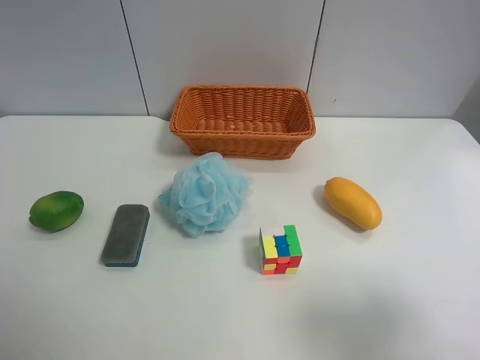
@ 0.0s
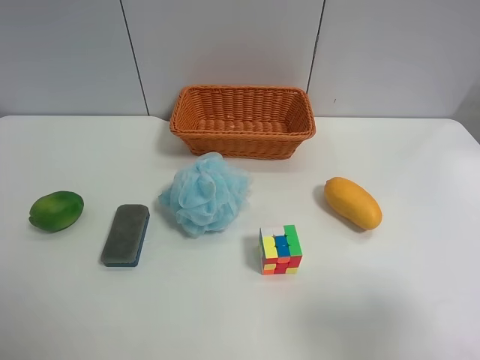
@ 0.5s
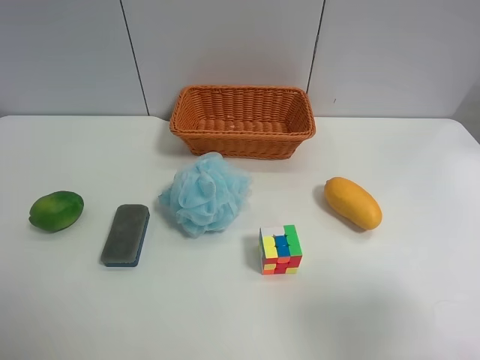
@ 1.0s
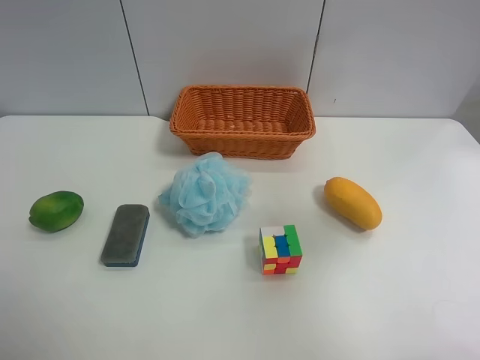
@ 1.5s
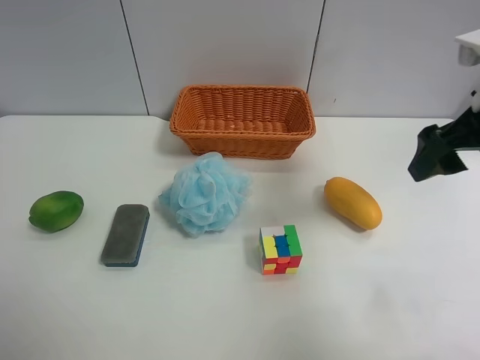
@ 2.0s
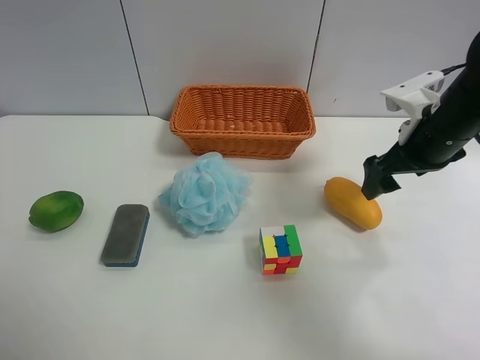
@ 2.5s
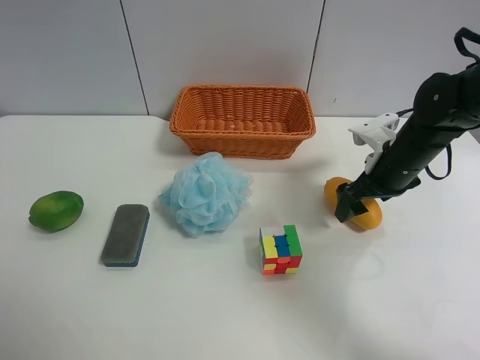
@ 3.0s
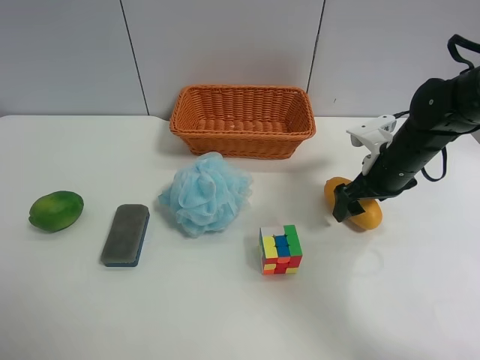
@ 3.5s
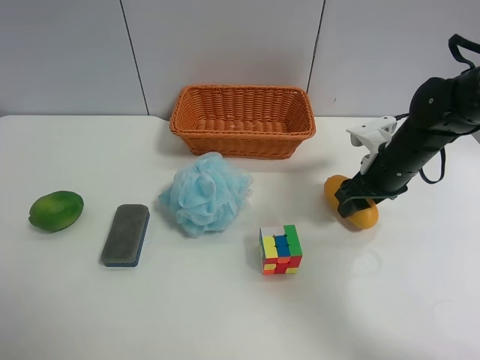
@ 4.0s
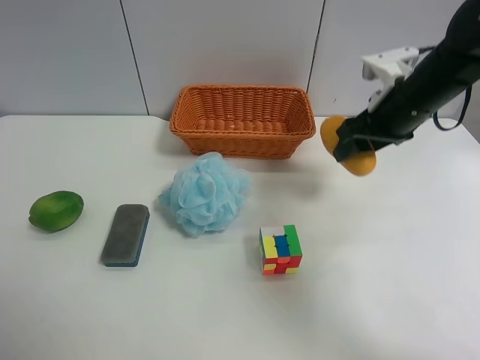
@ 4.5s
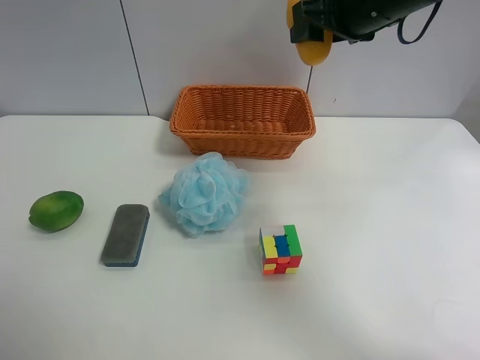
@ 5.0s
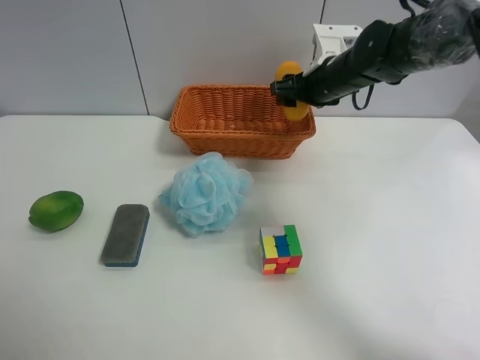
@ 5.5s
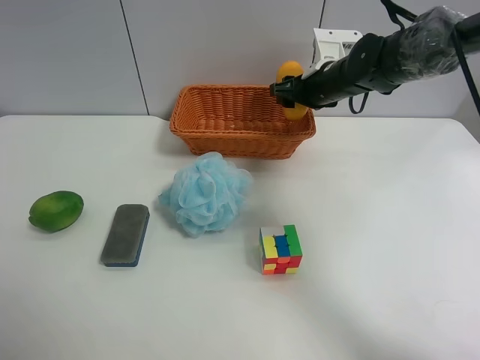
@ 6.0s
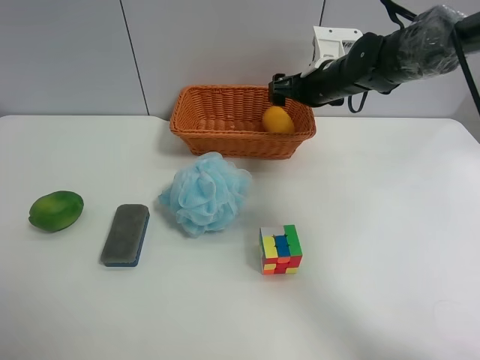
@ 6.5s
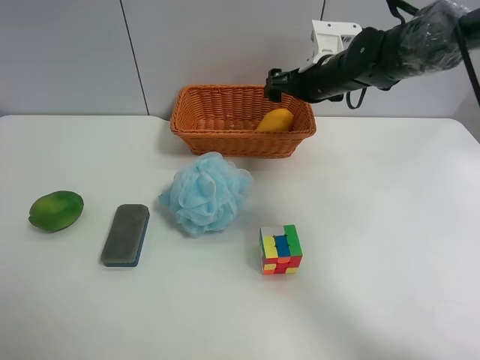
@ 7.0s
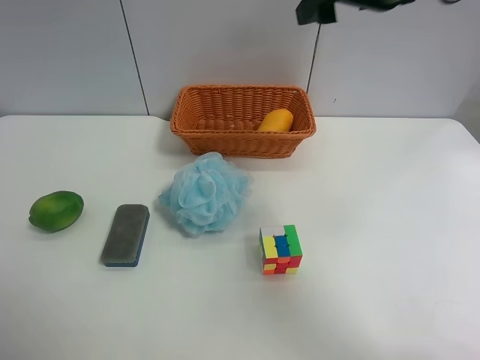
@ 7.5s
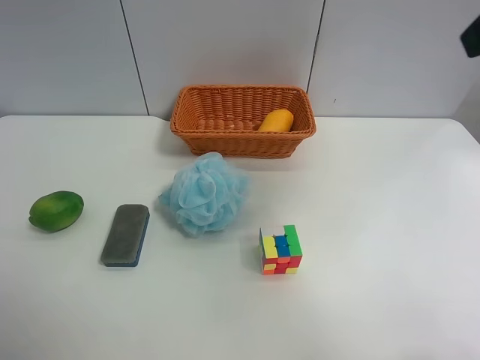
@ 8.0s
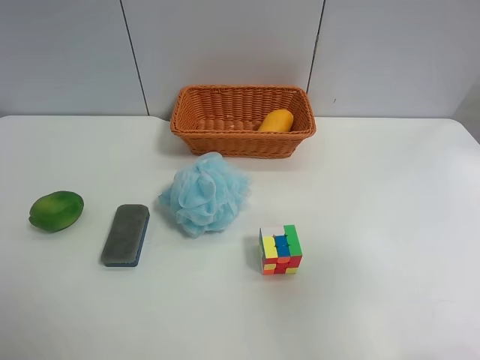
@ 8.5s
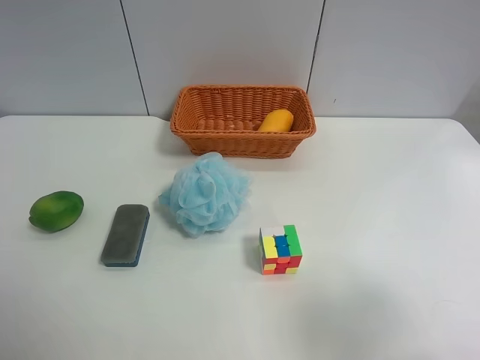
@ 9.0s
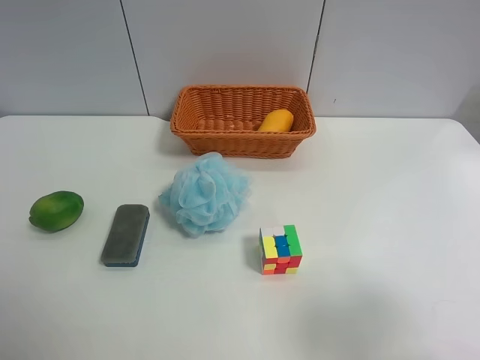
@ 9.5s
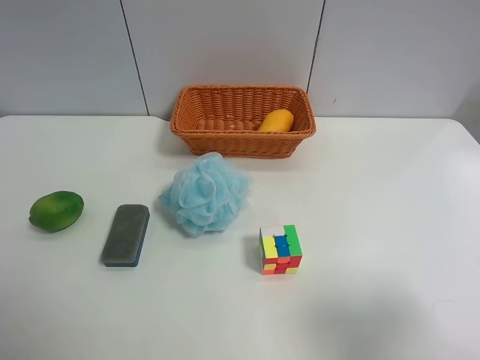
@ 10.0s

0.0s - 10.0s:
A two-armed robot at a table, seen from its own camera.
Task of the whole recording: Randomly grab green lemon or mangoes from the table and put them in a basket.
Step, 0.0s - 4.0s: Grasp the mango with the right gripper.
Step, 4.5s - 7.0s: Place the mango into the basket with the right gripper.
0.0s - 2.0s: The right gripper moves forward, some 25 cm.
2.0s - 4.0s: The right gripper is displaced downward and forward by approximately 20 cm, and closes.
4.0s - 6.0s: The right gripper shifts some 15 cm forward and to the left, and goes upward and returns, about 20 cm each way.
6.0s - 8.0s: The right gripper travels backward and upward by about 35 cm, and opens.
8.0s - 10.0s: The right gripper moves backward and downward, about 25 cm.
